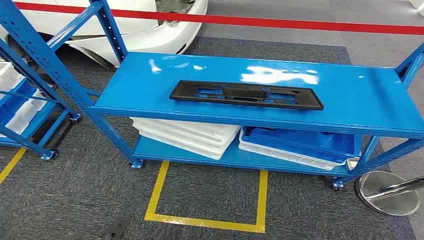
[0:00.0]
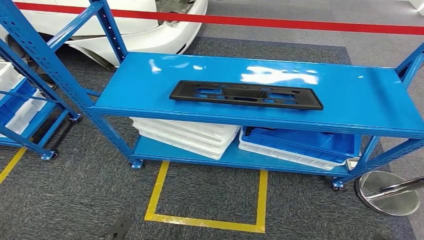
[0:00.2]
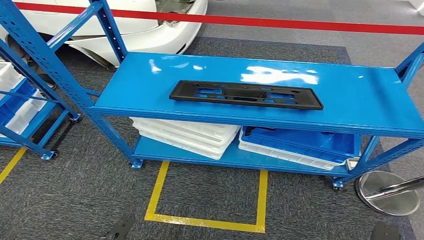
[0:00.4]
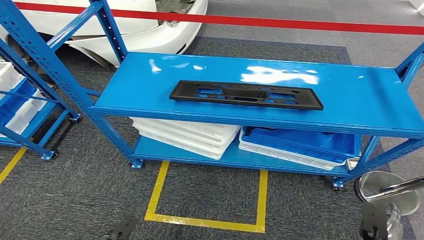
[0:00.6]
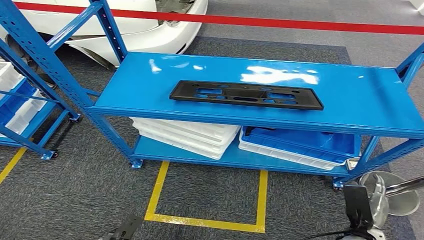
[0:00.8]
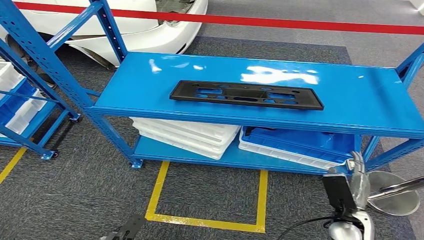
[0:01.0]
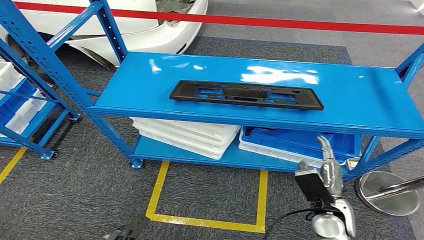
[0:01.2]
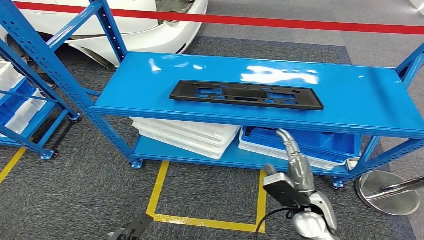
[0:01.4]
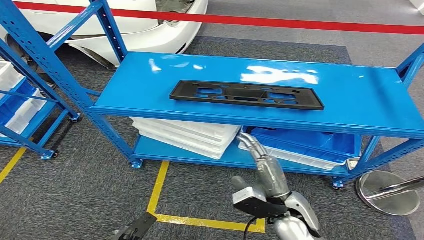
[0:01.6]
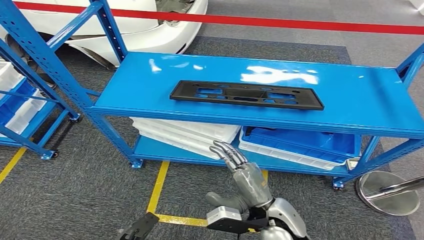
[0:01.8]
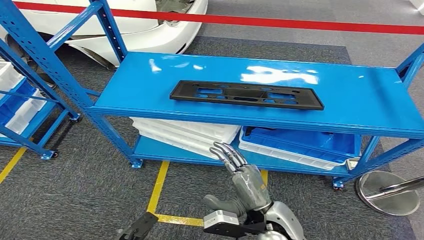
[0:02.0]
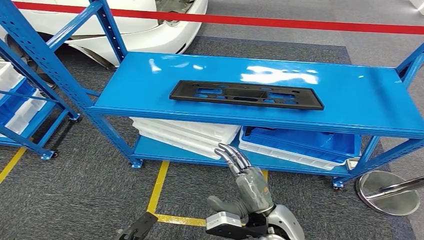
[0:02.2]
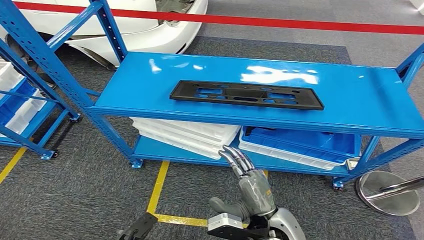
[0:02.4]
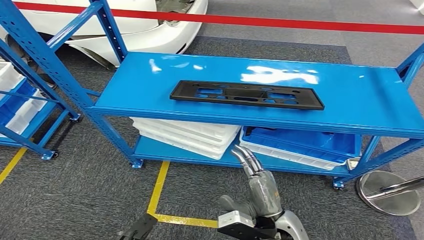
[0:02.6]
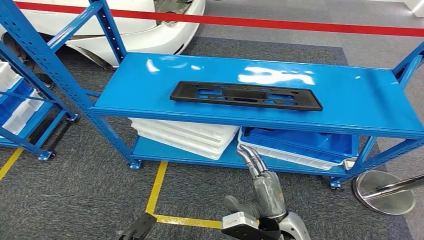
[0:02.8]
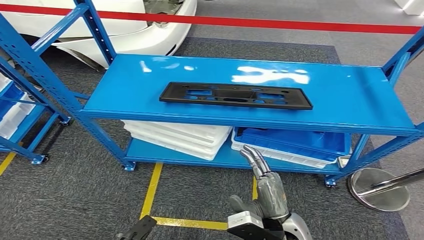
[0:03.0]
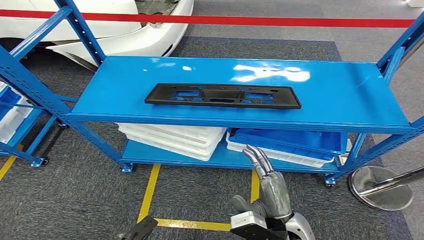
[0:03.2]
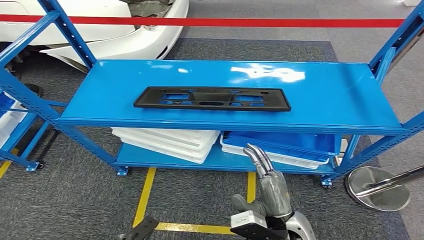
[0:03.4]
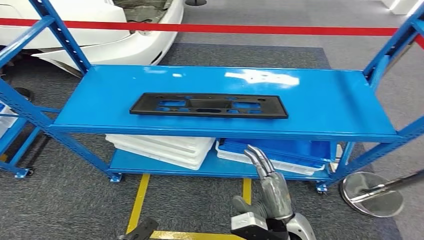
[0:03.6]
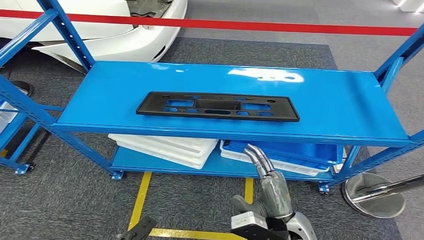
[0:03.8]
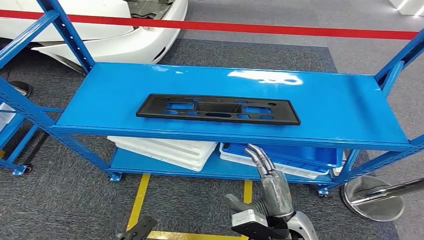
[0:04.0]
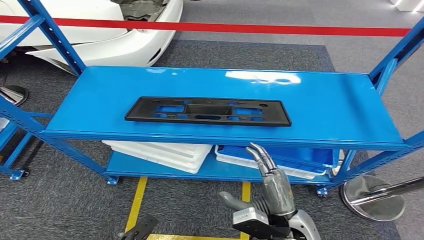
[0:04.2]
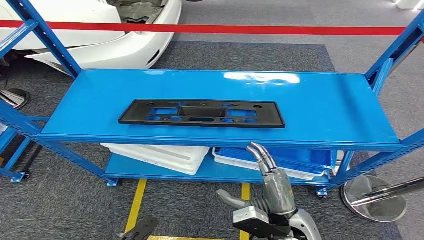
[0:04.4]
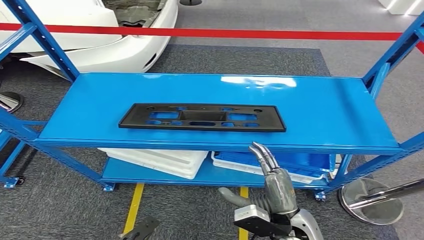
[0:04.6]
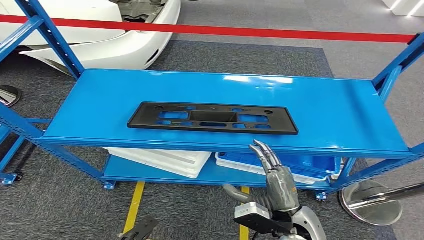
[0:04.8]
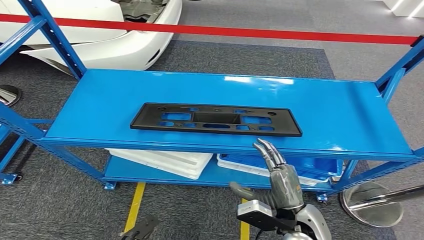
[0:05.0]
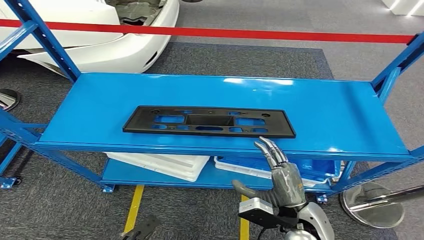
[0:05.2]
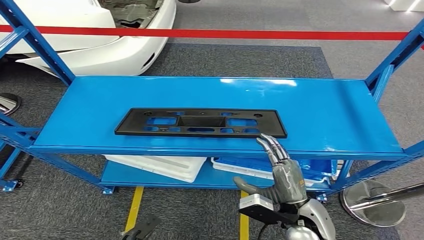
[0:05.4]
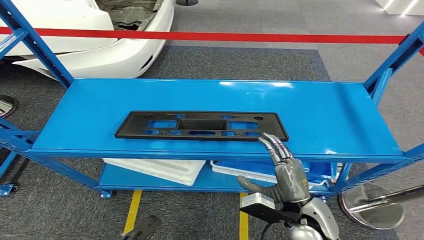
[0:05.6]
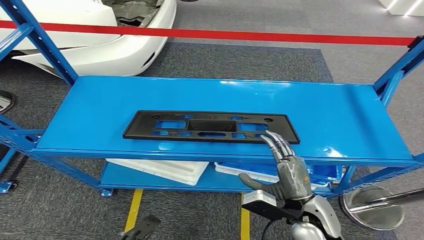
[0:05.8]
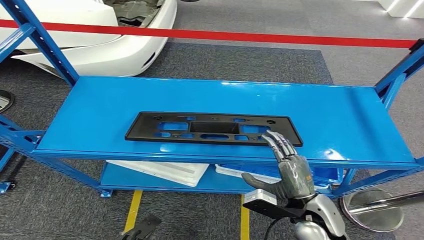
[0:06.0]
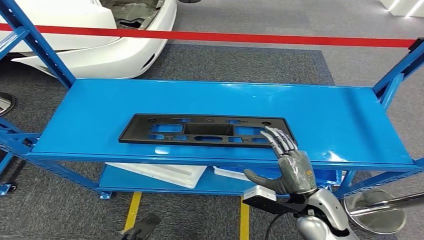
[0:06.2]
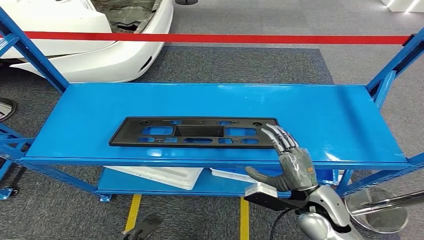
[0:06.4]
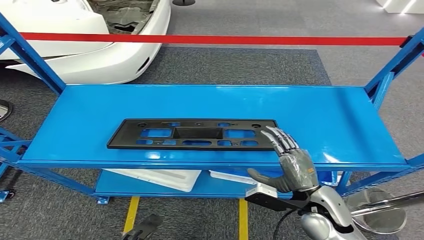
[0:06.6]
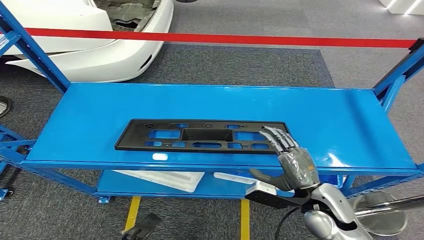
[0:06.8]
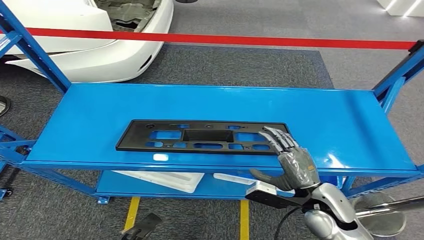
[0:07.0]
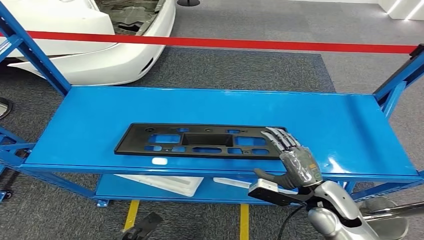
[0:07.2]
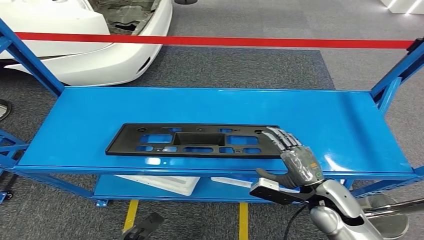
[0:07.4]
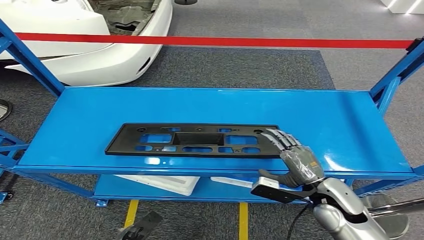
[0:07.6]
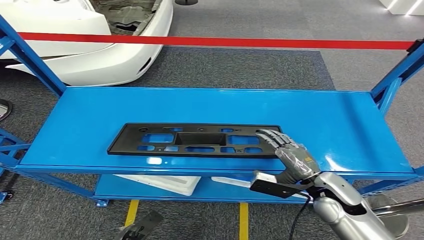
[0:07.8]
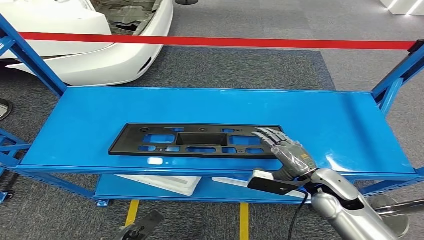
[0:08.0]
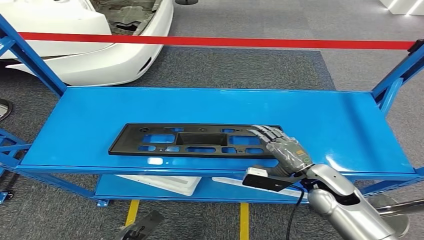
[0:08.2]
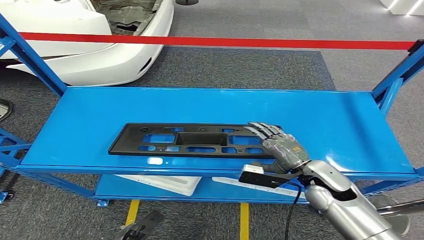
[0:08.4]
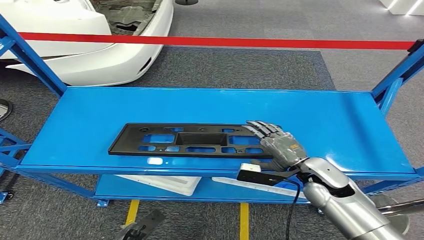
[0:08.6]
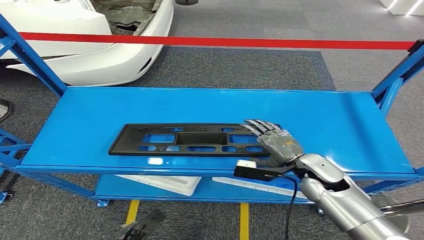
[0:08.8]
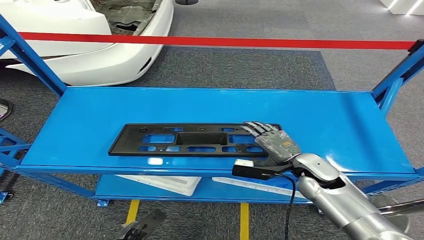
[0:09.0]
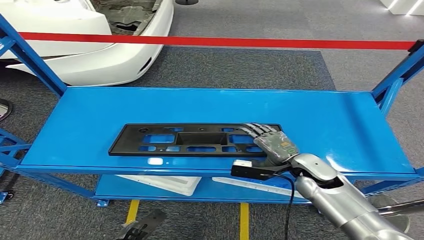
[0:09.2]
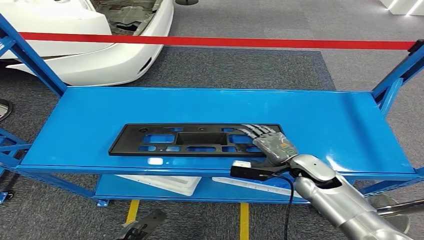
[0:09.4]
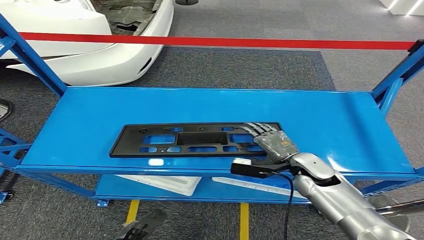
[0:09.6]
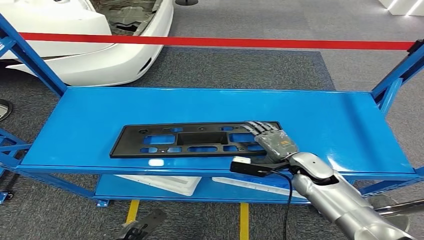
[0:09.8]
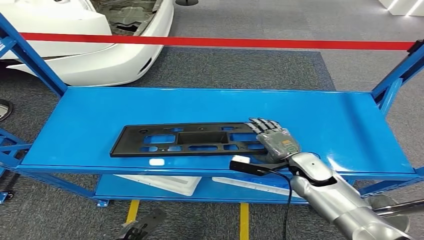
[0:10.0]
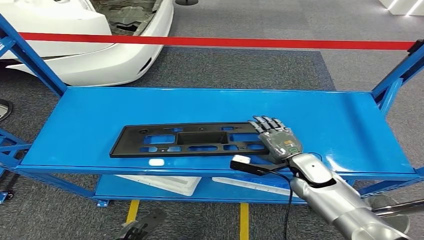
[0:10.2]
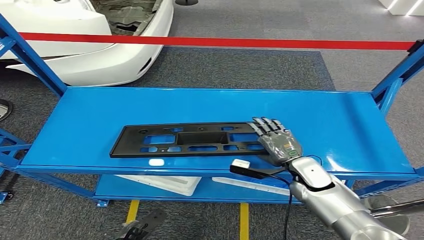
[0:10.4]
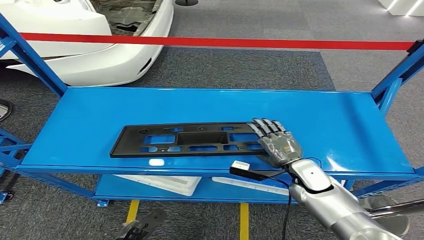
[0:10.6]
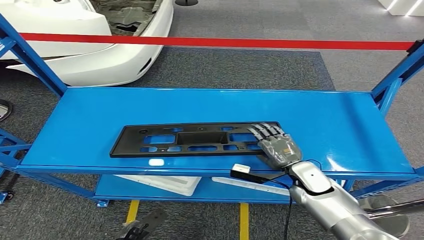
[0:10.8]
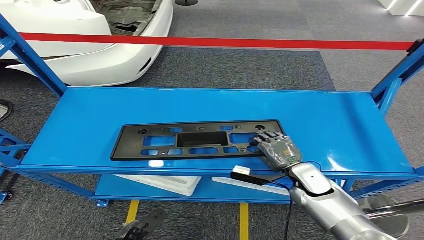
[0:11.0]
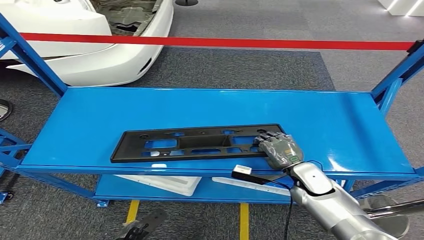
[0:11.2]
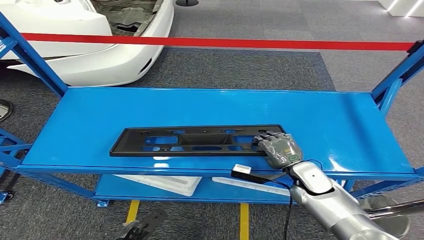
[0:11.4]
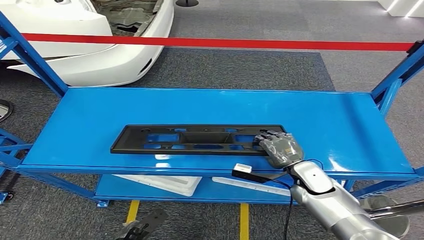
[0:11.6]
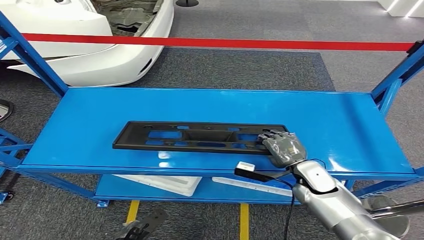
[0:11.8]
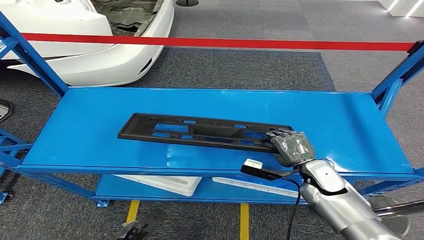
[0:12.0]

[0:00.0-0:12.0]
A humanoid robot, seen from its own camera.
0:07.6 to 0:09.0: The right hand is displaced forward by about 5 cm.
0:09.0 to 0:12.0: The hands make only small movements.

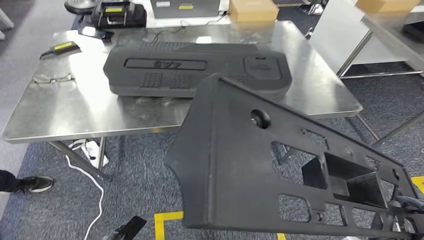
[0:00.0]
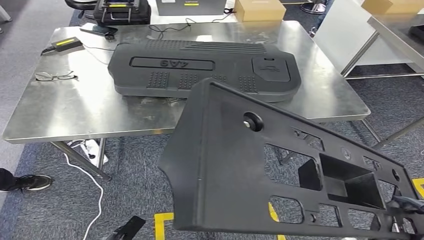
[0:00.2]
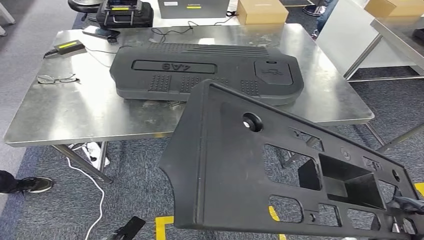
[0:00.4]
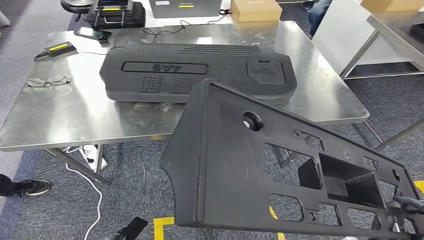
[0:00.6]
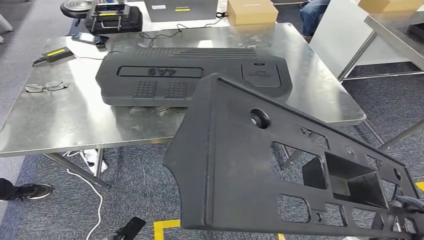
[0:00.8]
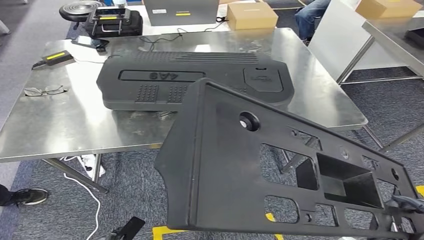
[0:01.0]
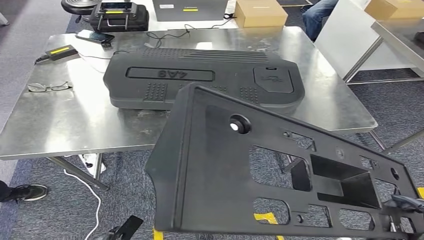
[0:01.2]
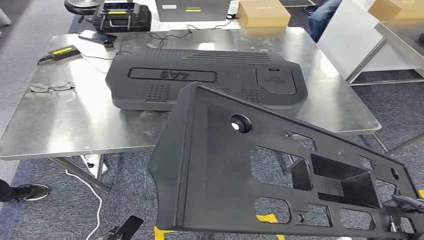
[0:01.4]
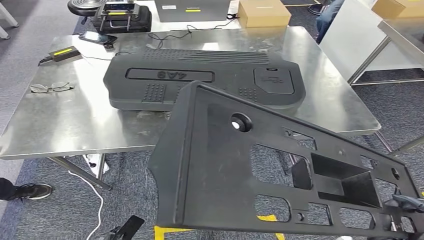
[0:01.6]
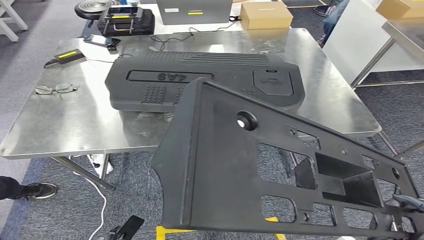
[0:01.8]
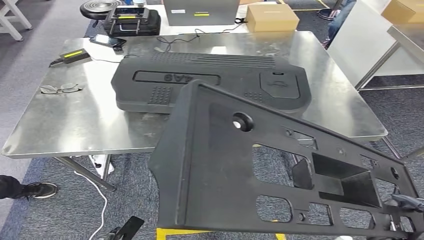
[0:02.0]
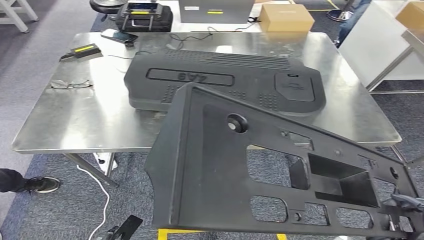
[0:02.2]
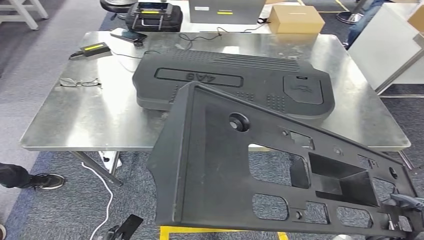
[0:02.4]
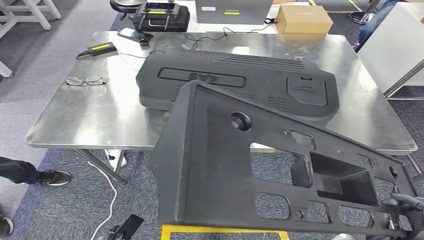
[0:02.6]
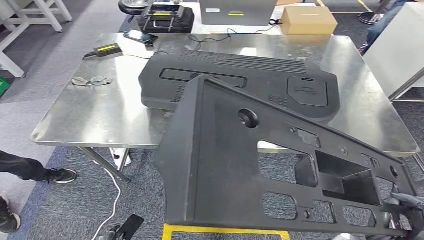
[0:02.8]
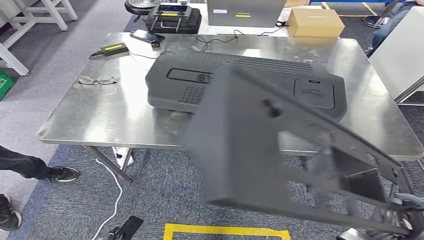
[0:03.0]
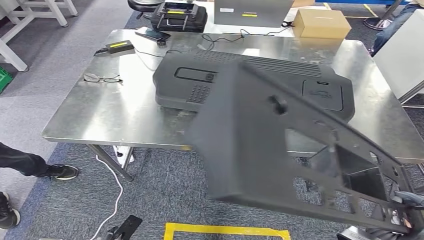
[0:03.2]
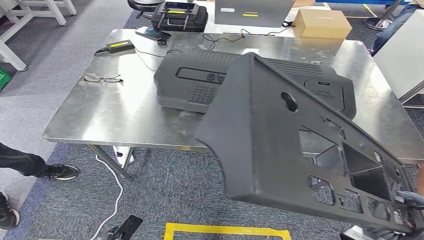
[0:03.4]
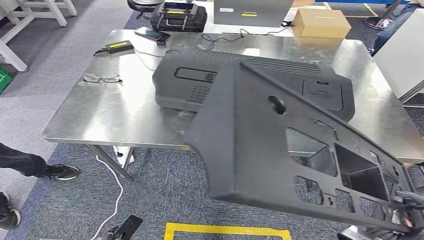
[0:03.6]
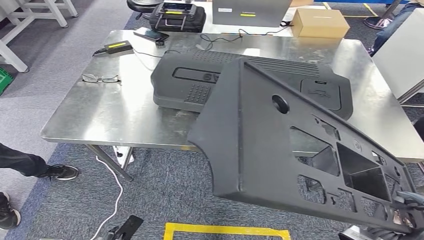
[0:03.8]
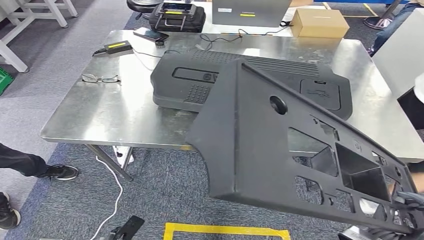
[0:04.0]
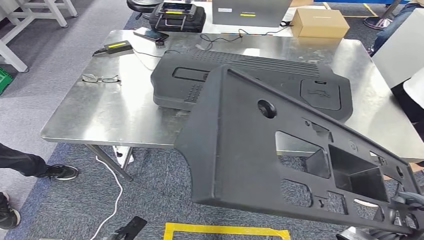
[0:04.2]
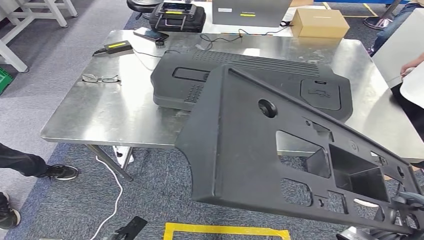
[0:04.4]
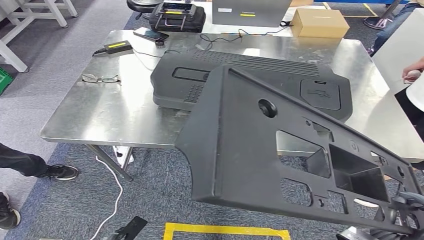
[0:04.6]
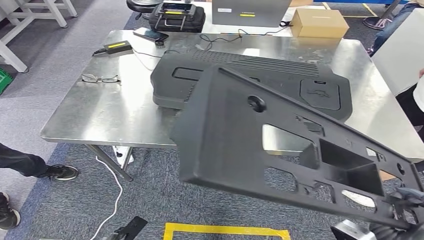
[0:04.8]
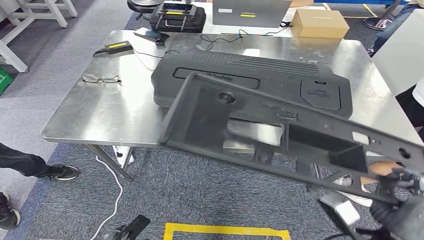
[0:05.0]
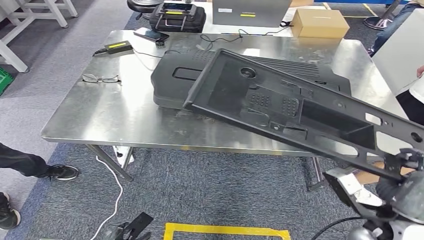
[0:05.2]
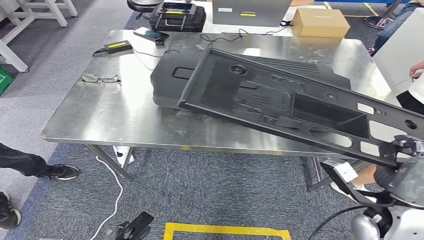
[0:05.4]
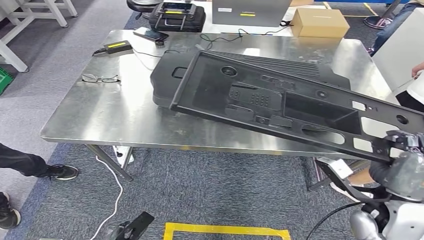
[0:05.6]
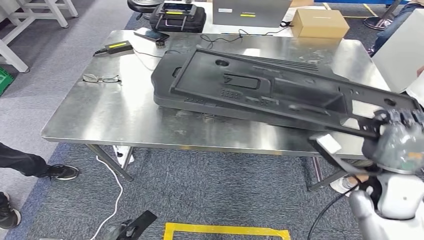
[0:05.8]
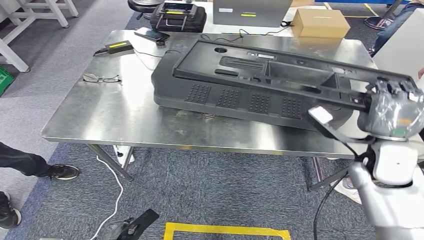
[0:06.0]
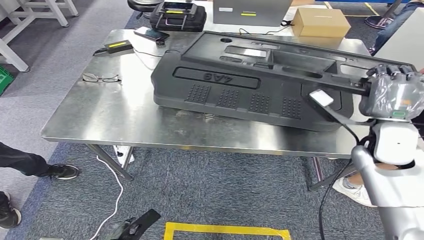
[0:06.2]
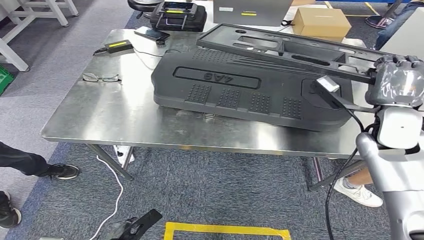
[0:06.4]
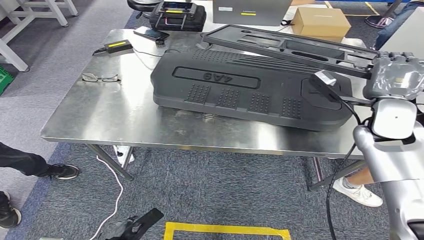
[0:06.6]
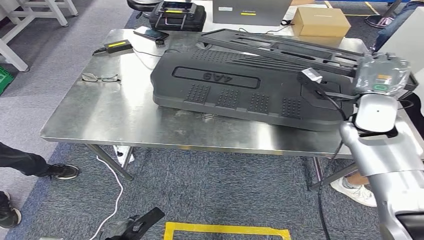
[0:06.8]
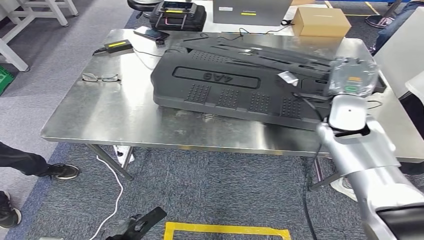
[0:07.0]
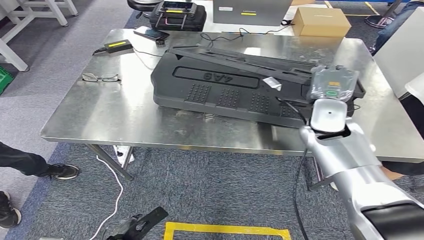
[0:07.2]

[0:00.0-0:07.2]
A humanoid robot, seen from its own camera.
Step, 0:00.0 to 0:02.8: Move the large material to the workbench.
